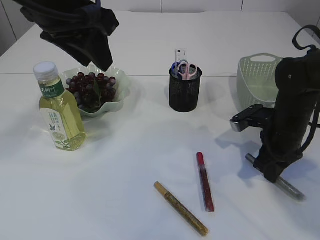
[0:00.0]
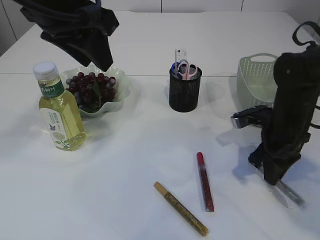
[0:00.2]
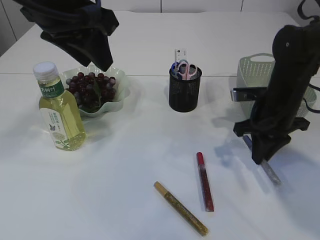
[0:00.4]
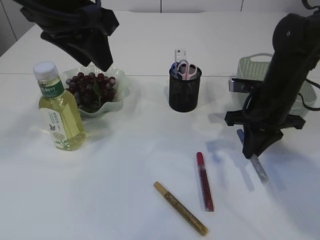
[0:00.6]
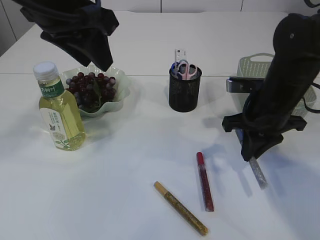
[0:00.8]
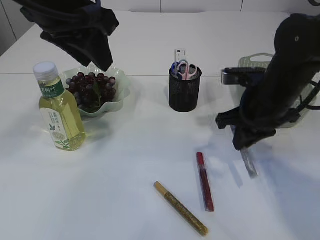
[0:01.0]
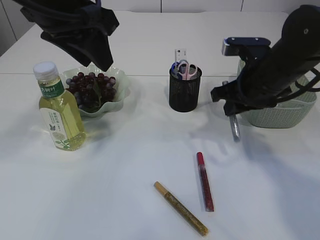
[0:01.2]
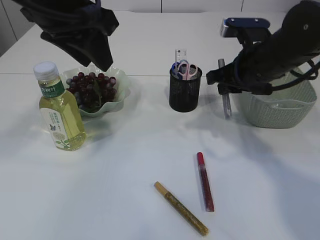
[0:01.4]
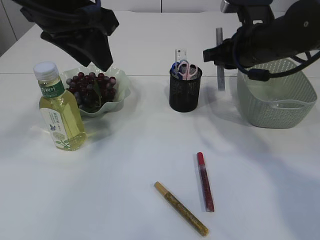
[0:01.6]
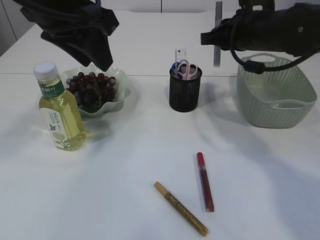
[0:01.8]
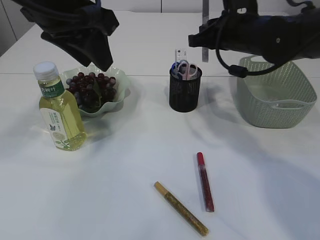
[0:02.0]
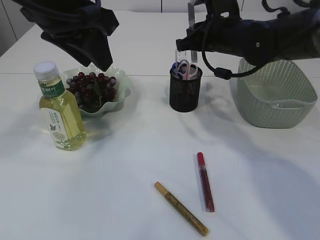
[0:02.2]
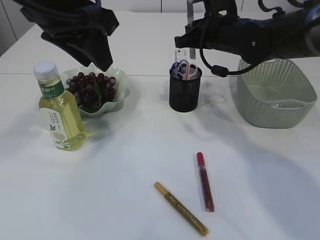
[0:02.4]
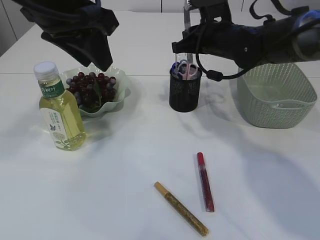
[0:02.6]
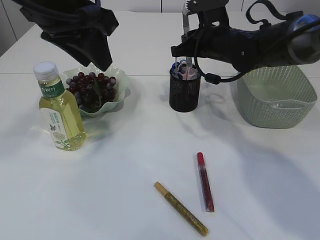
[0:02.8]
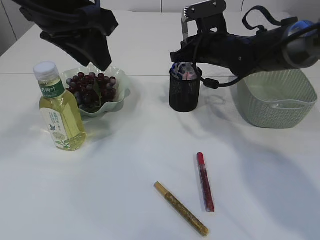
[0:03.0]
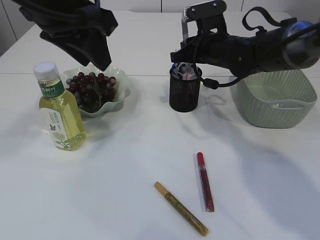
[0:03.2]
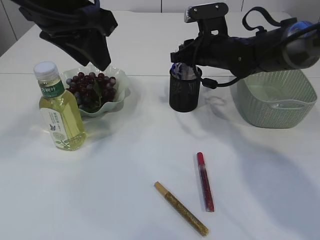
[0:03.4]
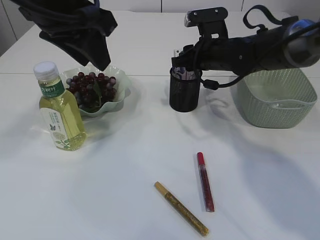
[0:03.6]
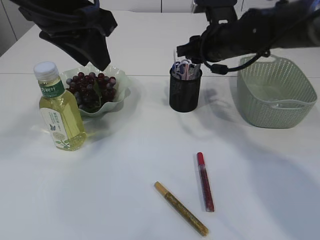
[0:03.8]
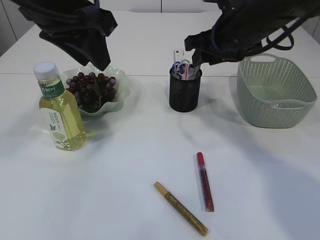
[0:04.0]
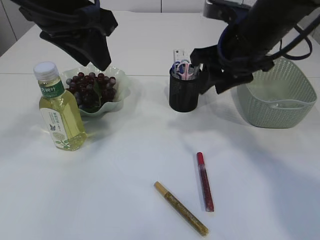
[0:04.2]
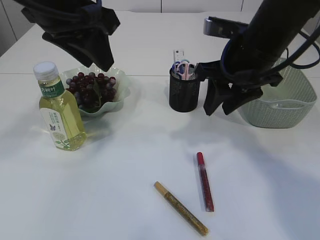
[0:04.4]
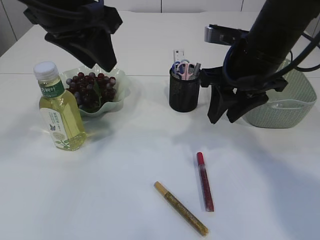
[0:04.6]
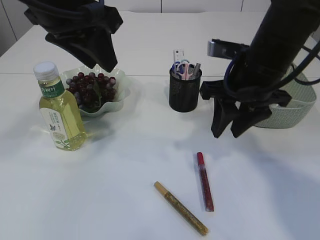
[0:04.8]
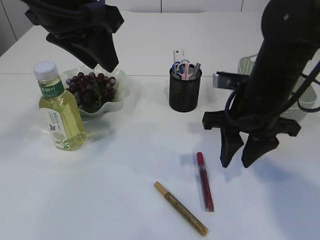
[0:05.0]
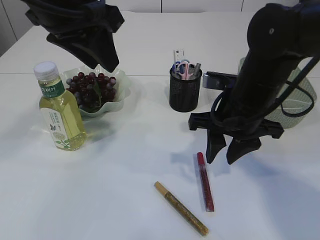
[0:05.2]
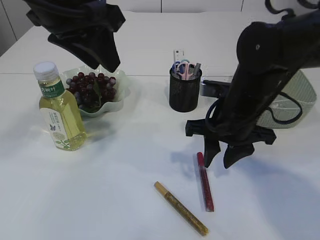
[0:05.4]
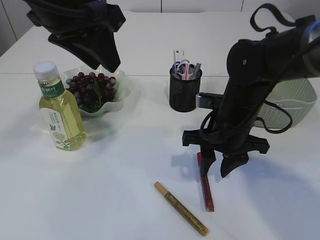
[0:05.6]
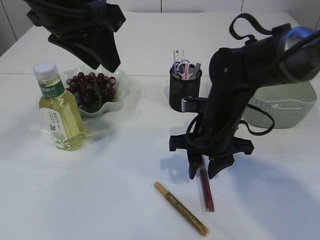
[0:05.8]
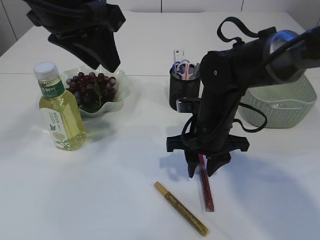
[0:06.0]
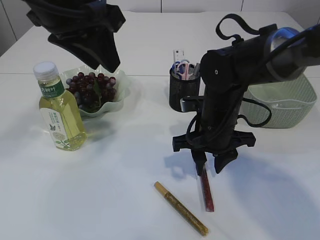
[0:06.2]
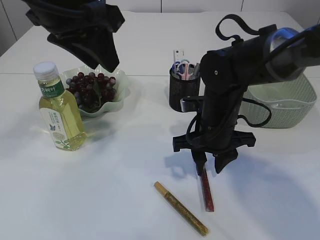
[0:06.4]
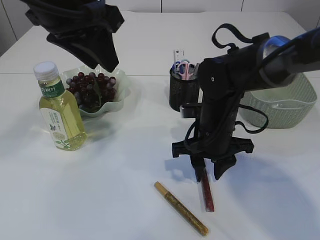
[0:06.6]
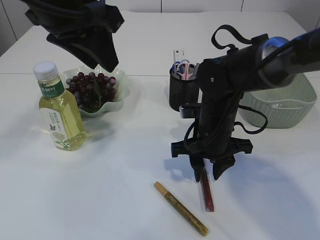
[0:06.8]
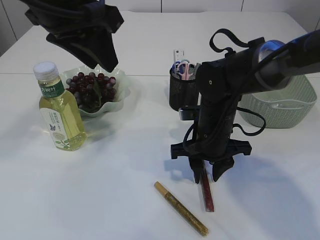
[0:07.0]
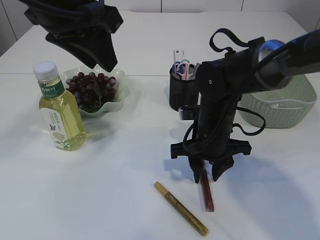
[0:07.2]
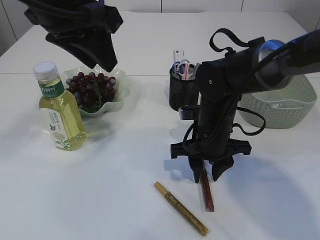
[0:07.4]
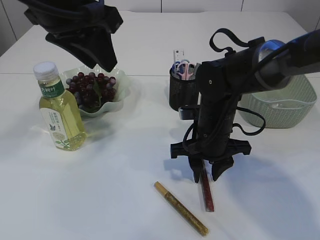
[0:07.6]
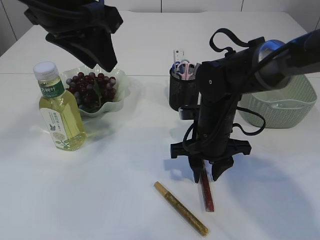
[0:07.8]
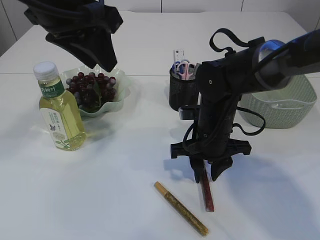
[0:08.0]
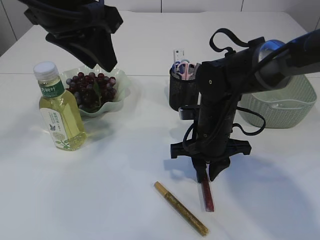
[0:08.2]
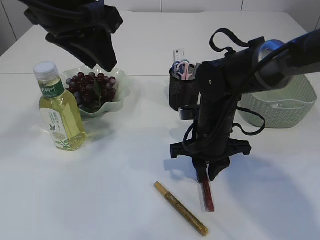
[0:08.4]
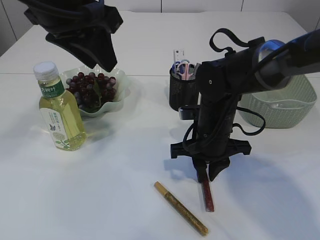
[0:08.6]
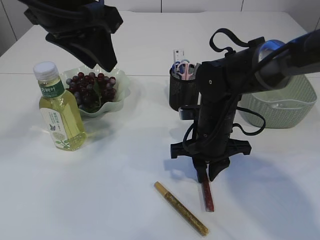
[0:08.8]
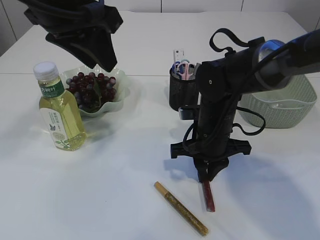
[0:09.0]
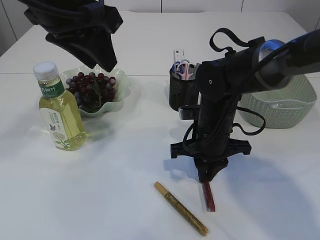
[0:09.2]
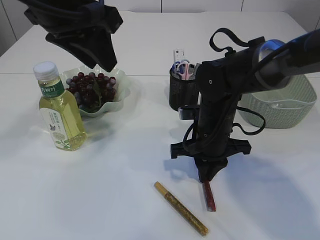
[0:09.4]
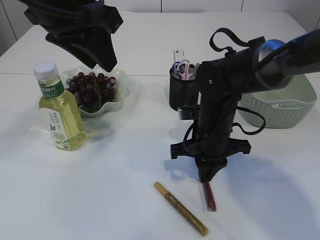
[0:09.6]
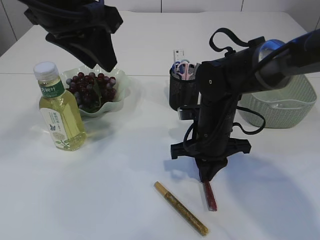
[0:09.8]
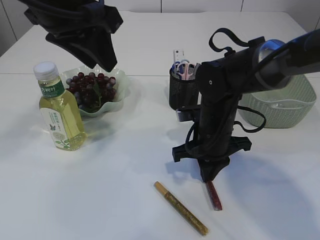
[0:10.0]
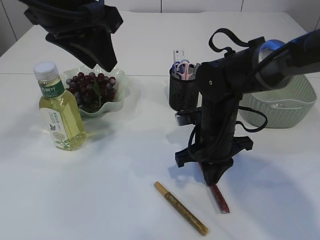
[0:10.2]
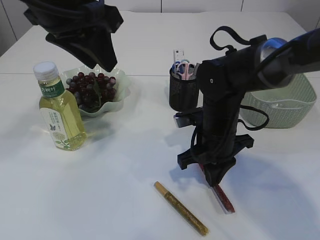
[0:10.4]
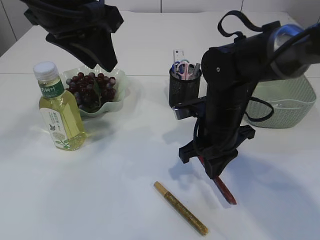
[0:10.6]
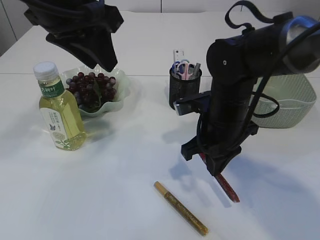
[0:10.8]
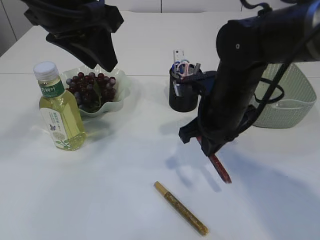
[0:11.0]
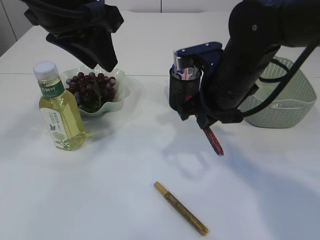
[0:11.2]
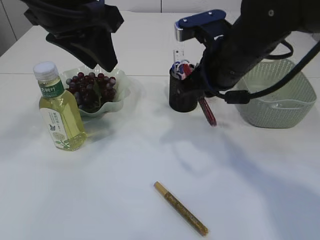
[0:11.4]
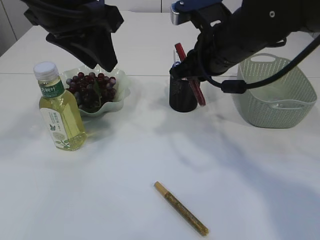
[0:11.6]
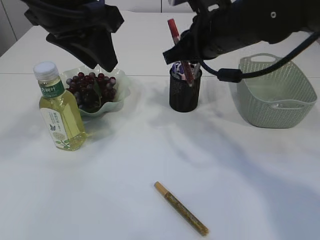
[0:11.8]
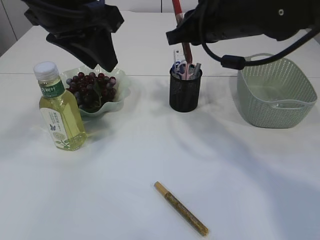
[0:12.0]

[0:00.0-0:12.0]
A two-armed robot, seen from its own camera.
Step, 0:01.2 to 0:04.2: place the silver glue into the pen holder.
Step, 0:04.4 to 0:11.2: pick up the red glue.
0:00.0 to 0:01.6: The right gripper goes some 15 cm upward and to the left.
0:01.6 to 0:03.0: The right gripper heads forward, covering roughly 10 cm.
0:03.0 to 0:04.4: The right gripper is displaced backward and upward by approximately 15 cm, and opens its fingers.
0:04.4 to 0:06.0: The right gripper heads downward, covering roughly 15 cm.
0:06.0 to 0:07.6: The grippers move only a little.
0:07.6 to 0:09.0: The right gripper closes.
0:09.0 to 0:10.4: The grippers stay close to where they were, moving slightly.
0:10.4 to 0:12.0: The right gripper travels upward by roughly 15 cm.

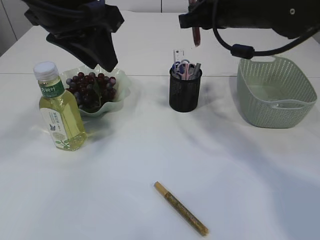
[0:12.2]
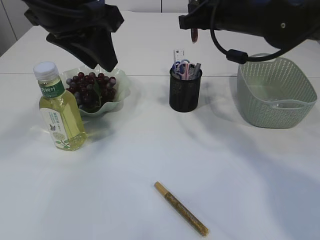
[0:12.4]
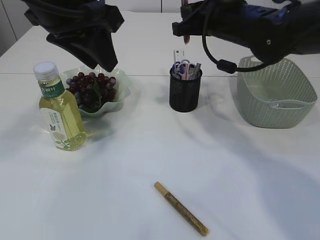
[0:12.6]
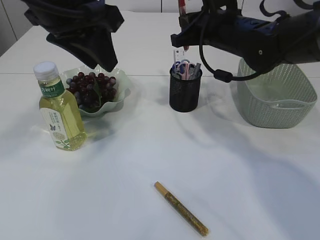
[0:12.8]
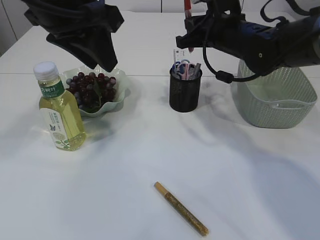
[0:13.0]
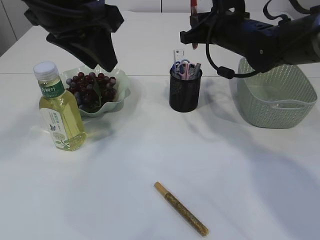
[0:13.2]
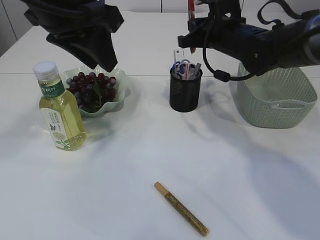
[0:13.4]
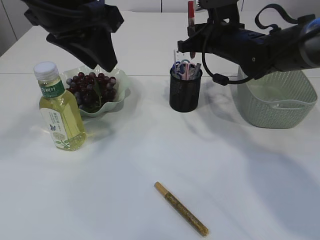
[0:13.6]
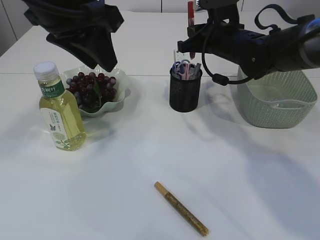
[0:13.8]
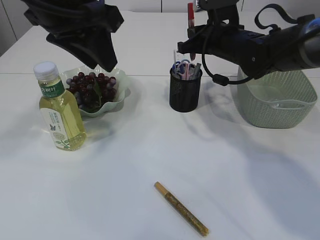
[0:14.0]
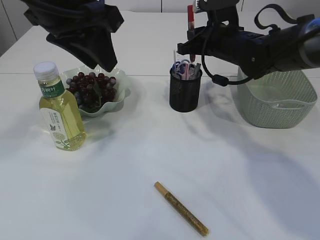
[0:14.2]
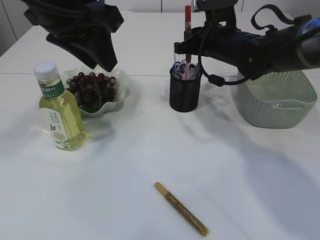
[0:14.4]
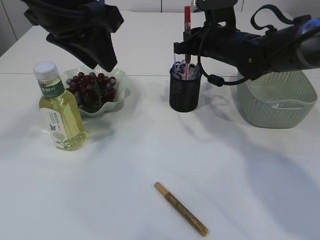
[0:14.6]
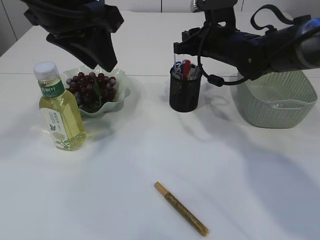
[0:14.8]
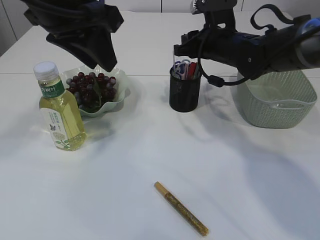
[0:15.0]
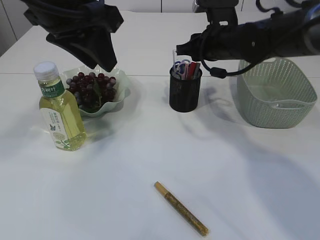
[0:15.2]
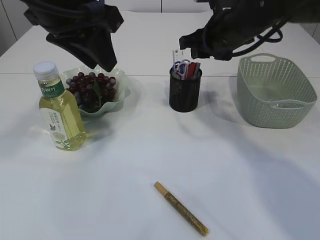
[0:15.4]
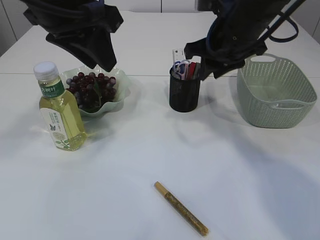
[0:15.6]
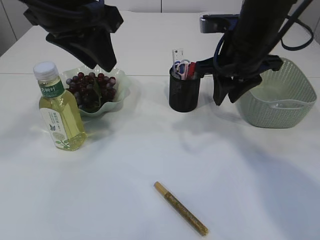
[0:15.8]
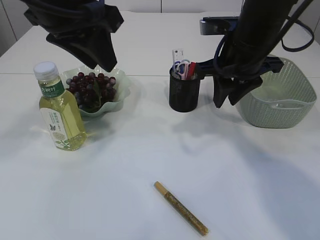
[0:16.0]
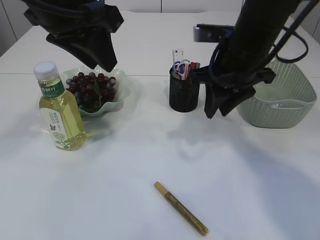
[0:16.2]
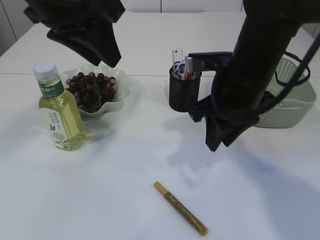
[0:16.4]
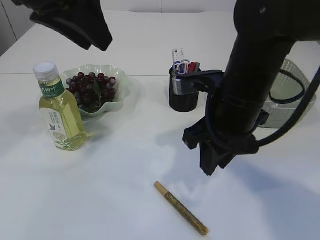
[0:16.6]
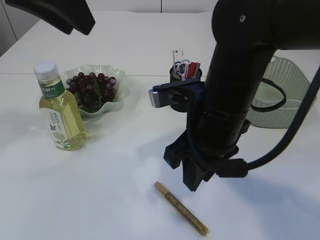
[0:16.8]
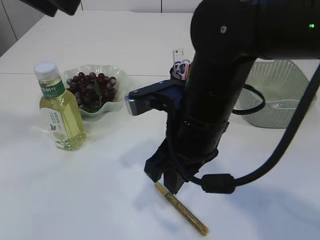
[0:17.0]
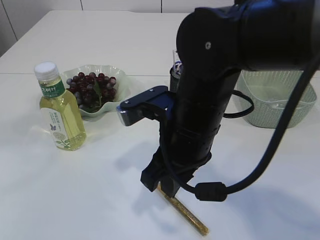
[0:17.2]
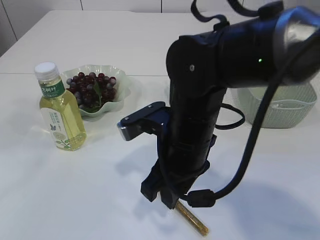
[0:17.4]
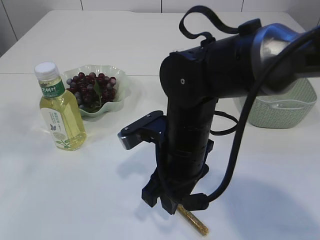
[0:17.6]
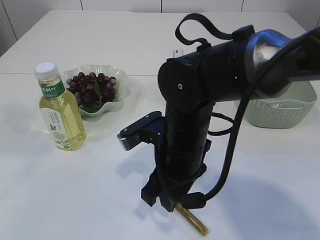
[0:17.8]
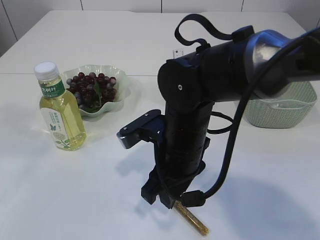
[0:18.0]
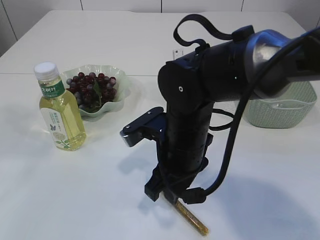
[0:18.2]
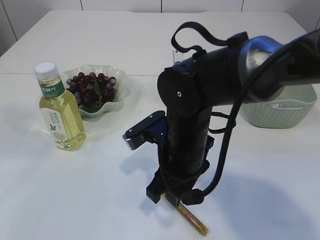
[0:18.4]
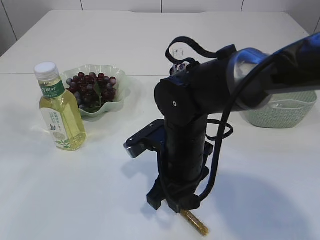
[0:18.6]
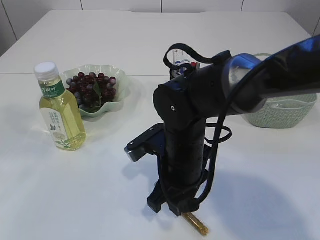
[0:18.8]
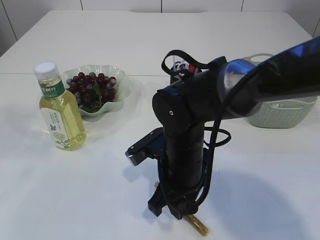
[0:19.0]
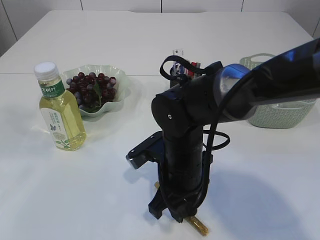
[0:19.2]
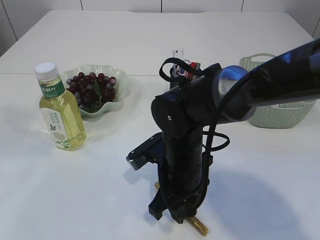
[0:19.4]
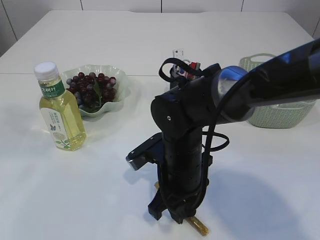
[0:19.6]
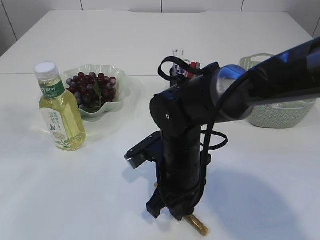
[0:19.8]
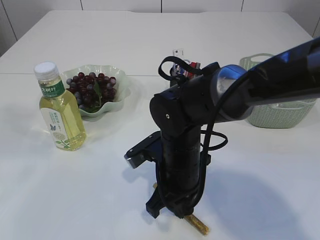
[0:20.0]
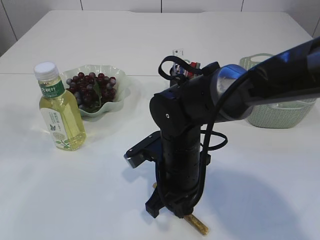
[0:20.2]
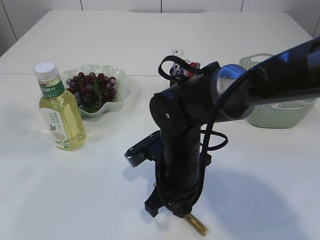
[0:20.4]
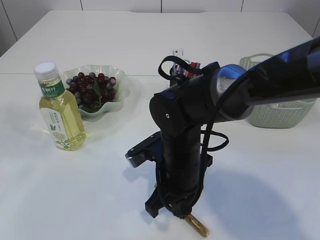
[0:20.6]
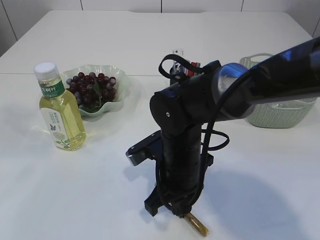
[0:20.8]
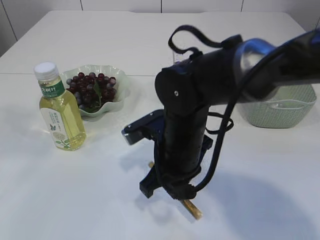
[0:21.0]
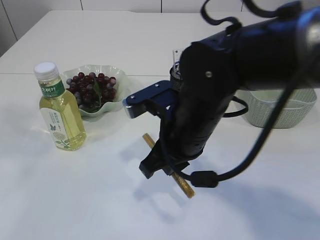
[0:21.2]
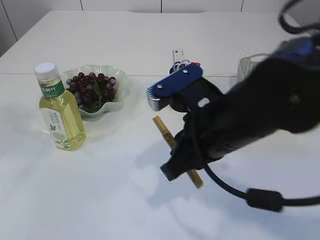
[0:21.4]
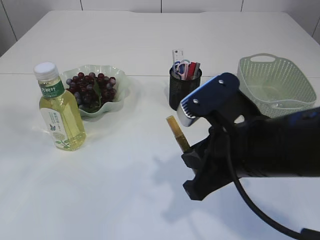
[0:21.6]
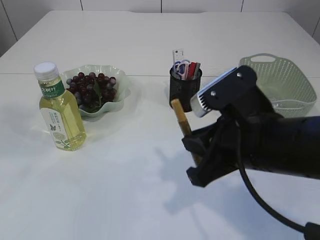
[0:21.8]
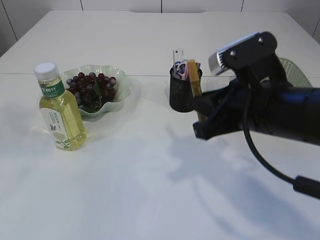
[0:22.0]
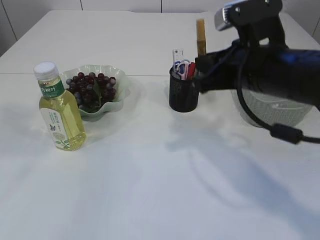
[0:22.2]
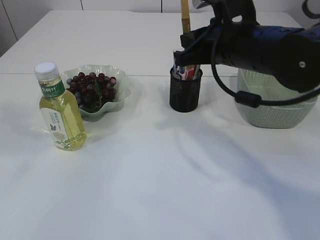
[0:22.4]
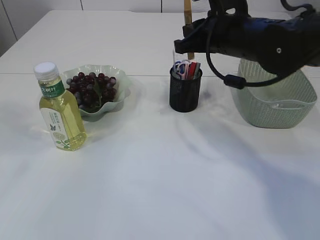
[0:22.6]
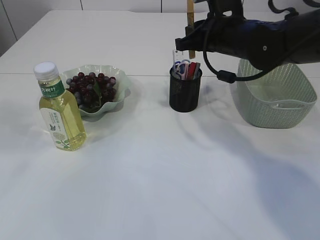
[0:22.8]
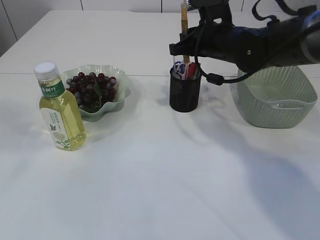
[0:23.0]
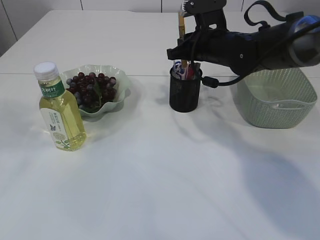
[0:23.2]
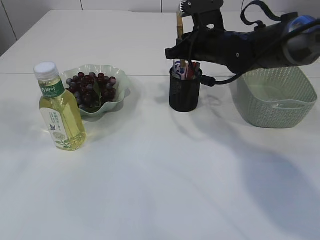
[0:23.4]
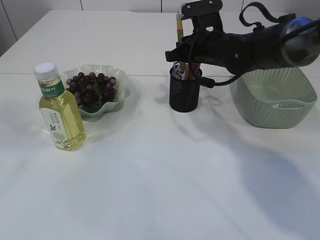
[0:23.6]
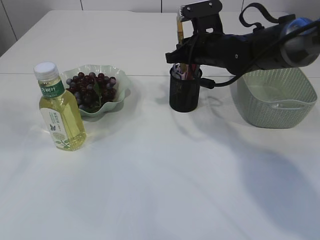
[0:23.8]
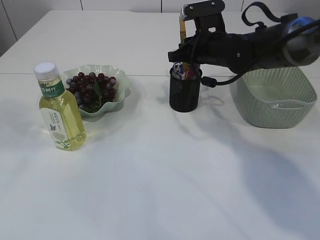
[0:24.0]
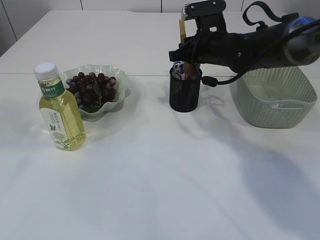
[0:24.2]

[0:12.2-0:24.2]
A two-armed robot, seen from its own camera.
Step, 0:12.2 to 0:15.0: place the red glue into the pen holder.
Step, 0:15.2 to 0:21.8: pick up the yellow glue.
0:12.2 to 0:13.8: The right gripper is displaced downward and forward by about 10 cm.
0:13.8 to 0:15.2: The right gripper opens up.
0:15.2 to 0:16.6: The right gripper shifts some 15 cm backward.
0:16.6 to 0:18.2: The left gripper goes some 15 cm backward, upward and to the left. The right gripper travels to the left and downward by approximately 10 cm.
0:18.2 to 0:19.8: The right gripper is displaced downward by approximately 5 cm.
0:19.8 to 0:21.2: The right gripper shifts approximately 10 cm upward, and closes up.
0:21.2 to 0:22.6: The right gripper heads forward, to the right and upward, covering roughly 15 cm.
0:22.6 to 0:24.2: The right gripper is displaced forward and downward by roughly 10 cm.
